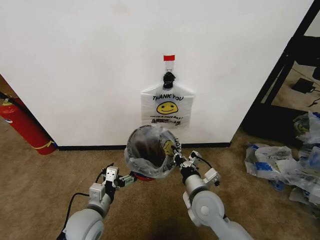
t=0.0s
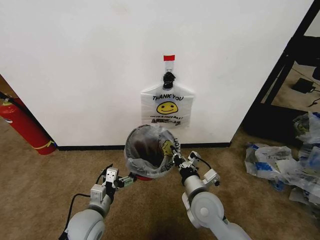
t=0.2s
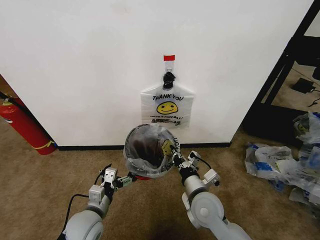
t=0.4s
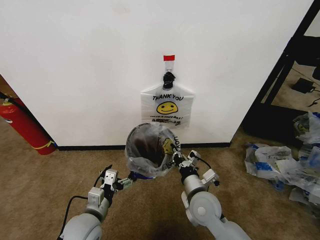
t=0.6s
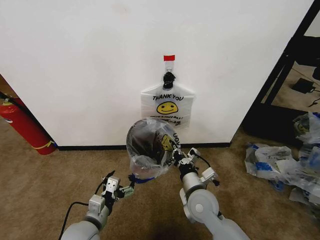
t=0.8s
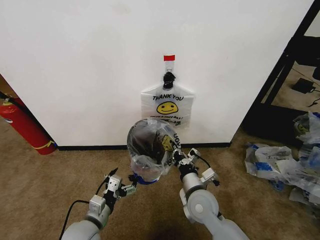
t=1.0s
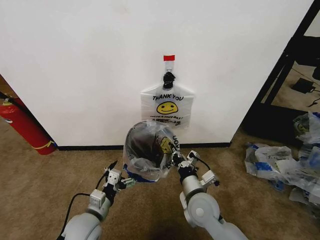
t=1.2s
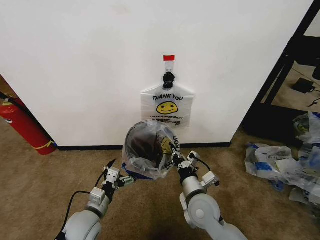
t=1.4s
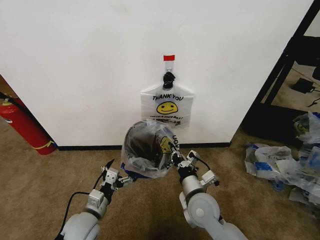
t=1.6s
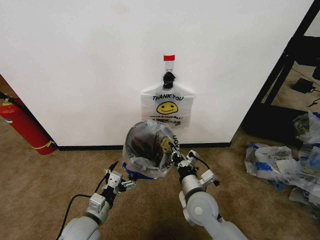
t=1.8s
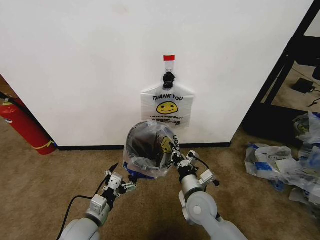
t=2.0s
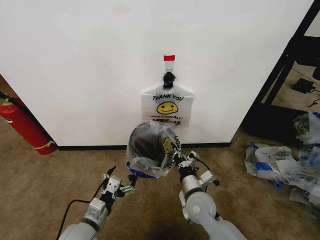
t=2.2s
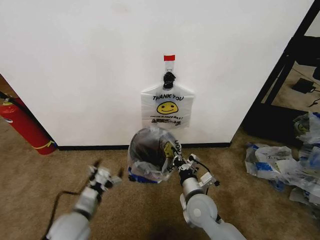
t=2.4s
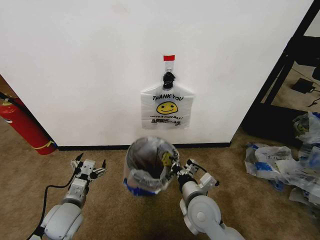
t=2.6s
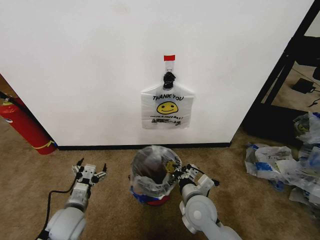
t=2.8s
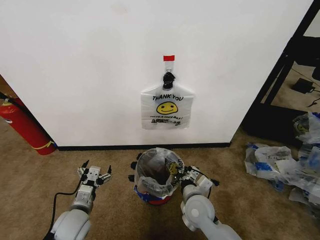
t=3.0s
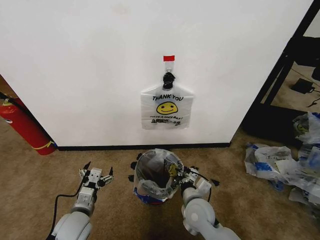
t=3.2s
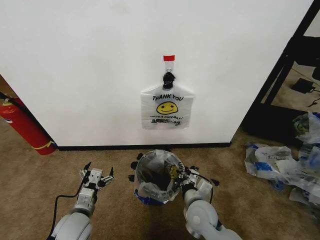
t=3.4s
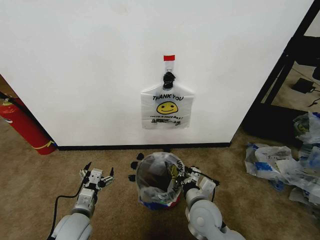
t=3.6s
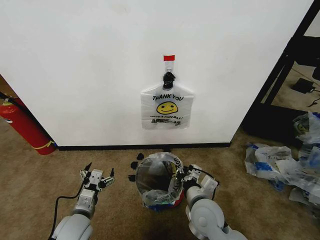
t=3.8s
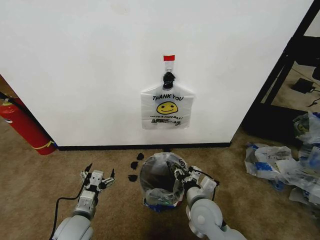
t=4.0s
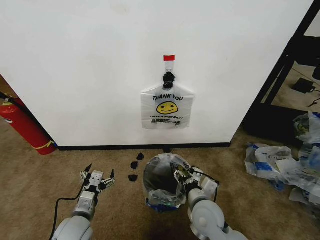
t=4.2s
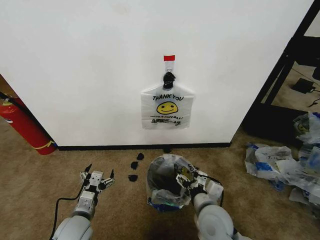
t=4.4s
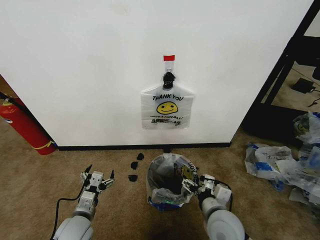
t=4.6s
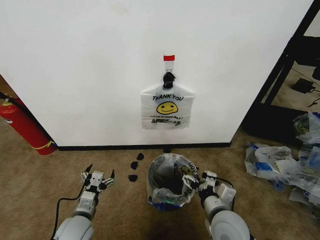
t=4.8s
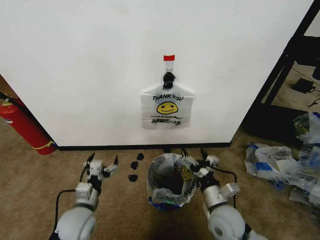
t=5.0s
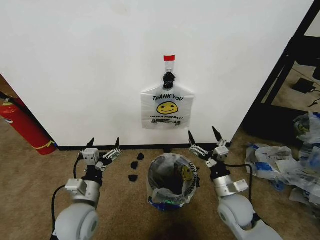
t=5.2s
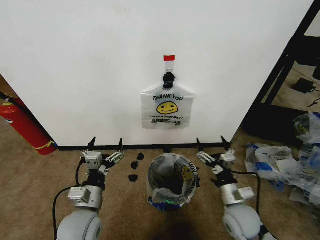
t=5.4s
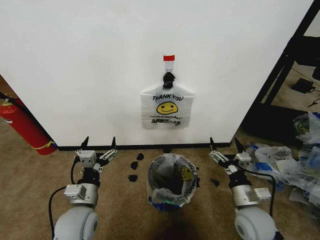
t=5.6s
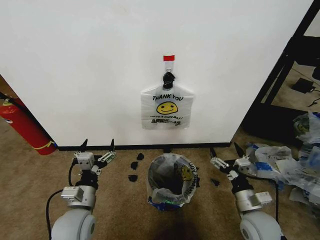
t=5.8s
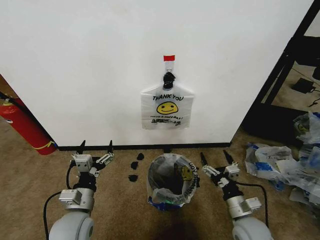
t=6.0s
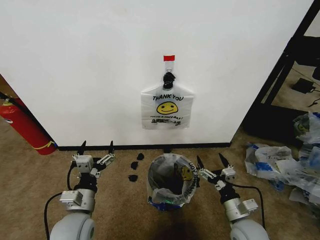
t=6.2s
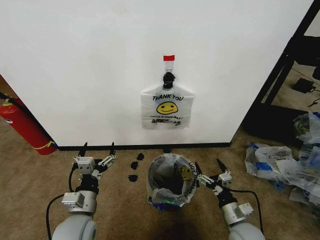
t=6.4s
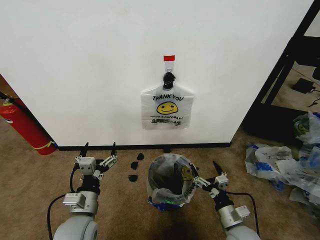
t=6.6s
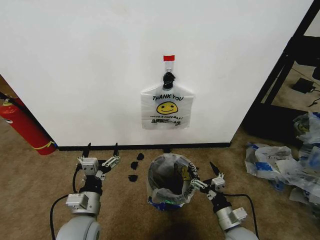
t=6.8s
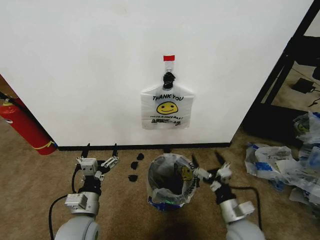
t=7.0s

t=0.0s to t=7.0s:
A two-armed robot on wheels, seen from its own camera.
Task of the whole recording: Pick up the garbage bag from the wall and place it over the trash bin.
t=0.0s to t=1.4s: The grippers make only small movements.
t=2.8s to t=4.2s: The right gripper opens up.
t=4.2s to t=5.6s: The left gripper heads upward, covering some 5 cm. The right gripper is displaced to the right by roughly 15 cm.

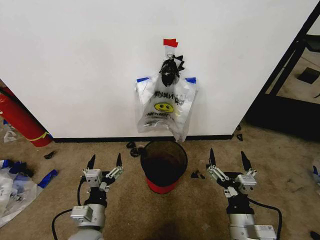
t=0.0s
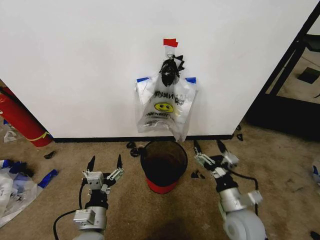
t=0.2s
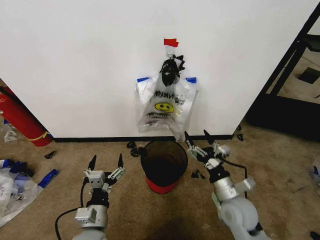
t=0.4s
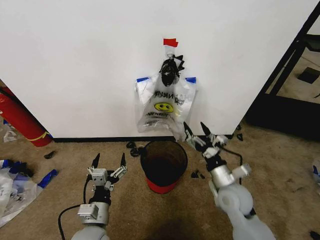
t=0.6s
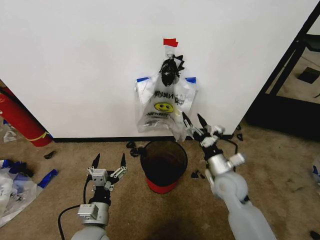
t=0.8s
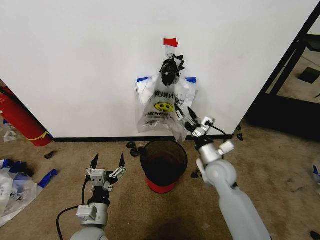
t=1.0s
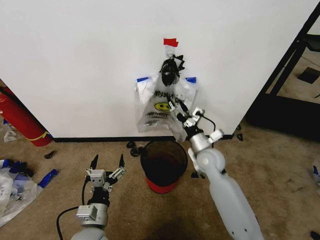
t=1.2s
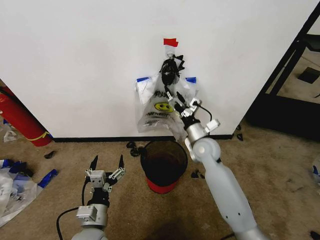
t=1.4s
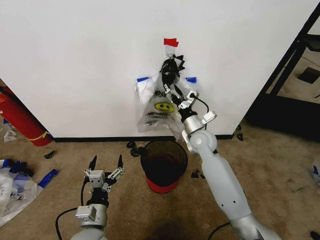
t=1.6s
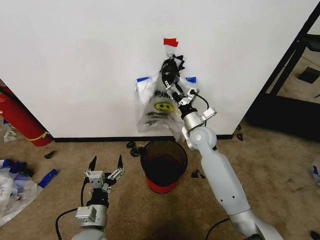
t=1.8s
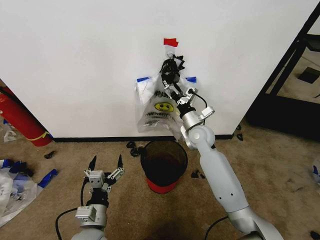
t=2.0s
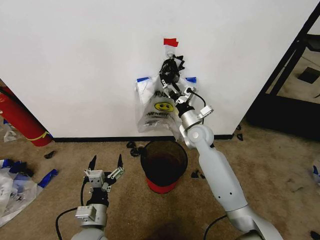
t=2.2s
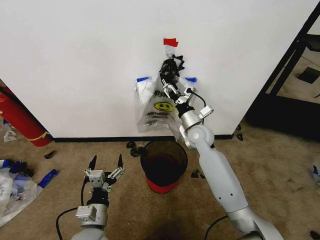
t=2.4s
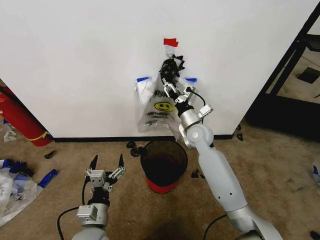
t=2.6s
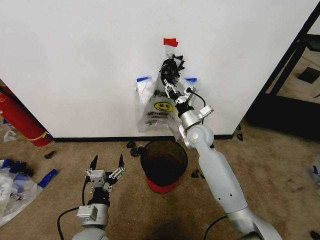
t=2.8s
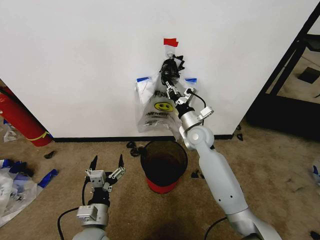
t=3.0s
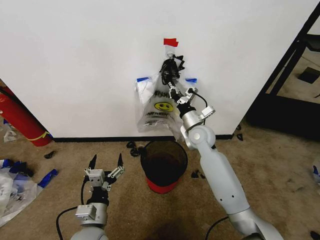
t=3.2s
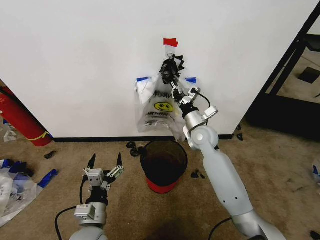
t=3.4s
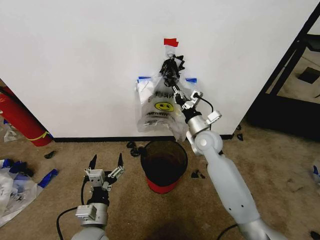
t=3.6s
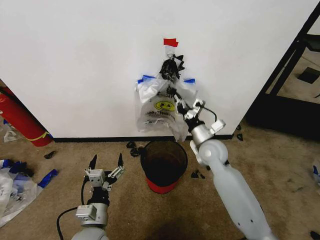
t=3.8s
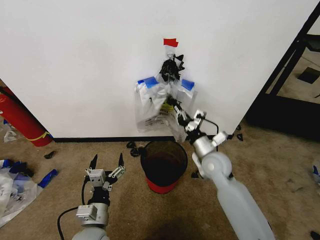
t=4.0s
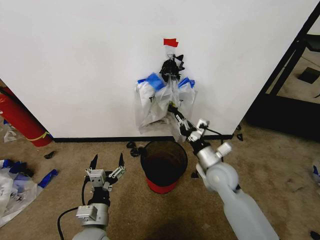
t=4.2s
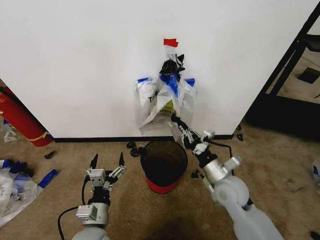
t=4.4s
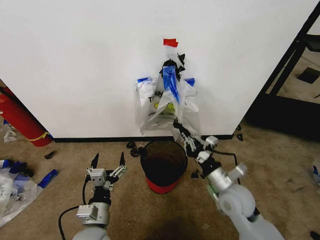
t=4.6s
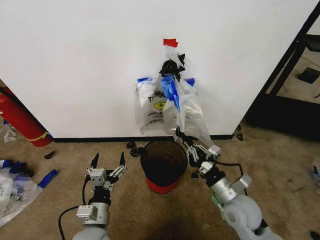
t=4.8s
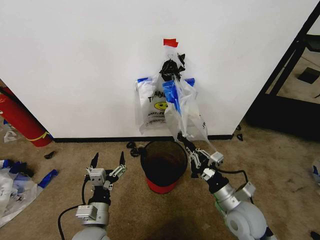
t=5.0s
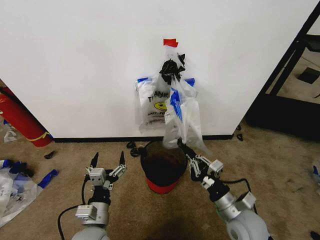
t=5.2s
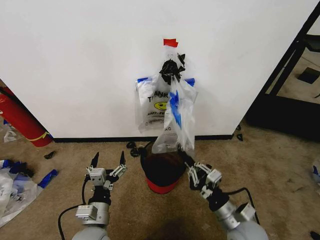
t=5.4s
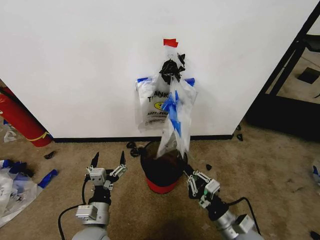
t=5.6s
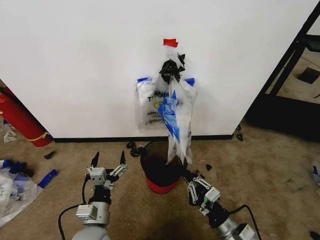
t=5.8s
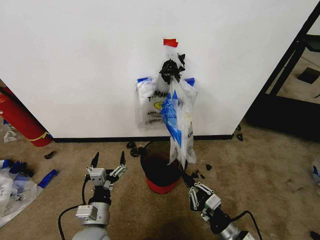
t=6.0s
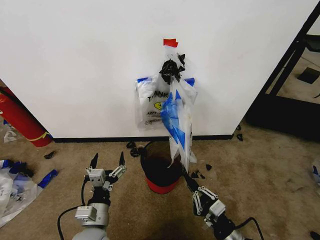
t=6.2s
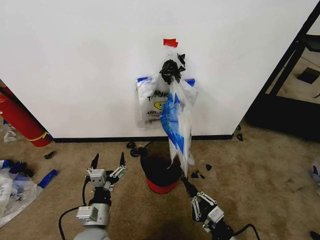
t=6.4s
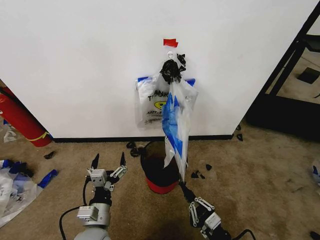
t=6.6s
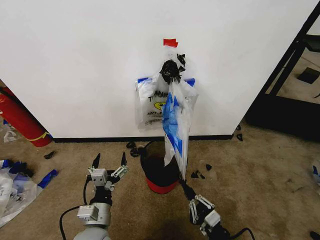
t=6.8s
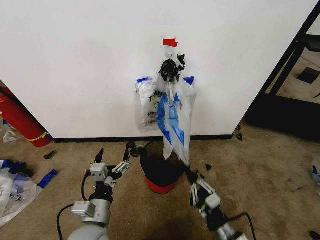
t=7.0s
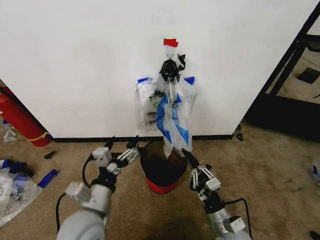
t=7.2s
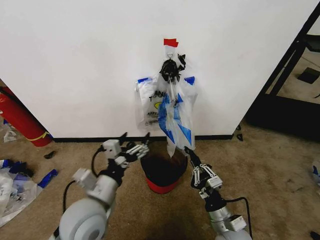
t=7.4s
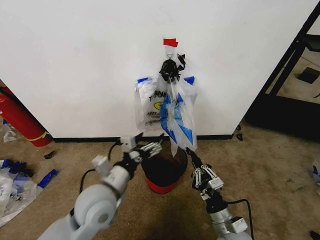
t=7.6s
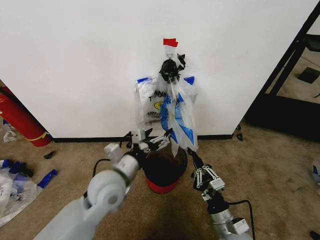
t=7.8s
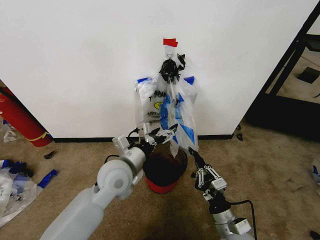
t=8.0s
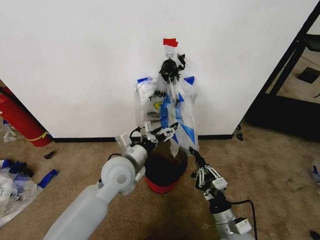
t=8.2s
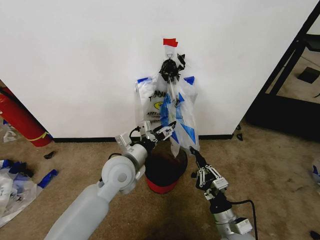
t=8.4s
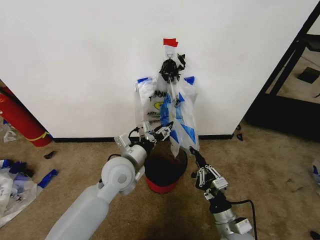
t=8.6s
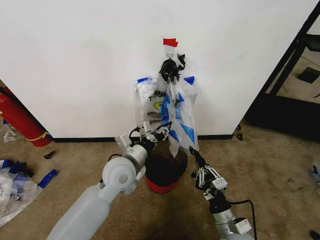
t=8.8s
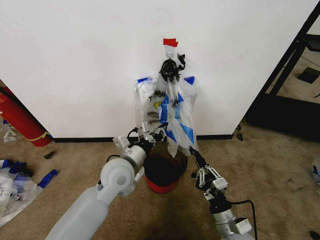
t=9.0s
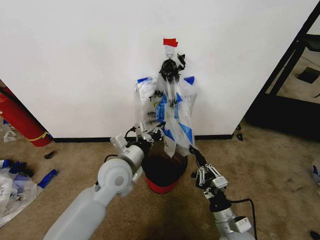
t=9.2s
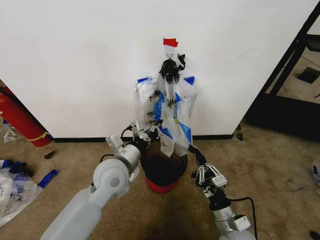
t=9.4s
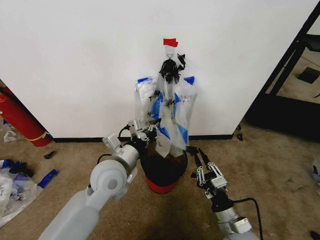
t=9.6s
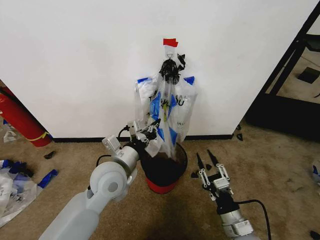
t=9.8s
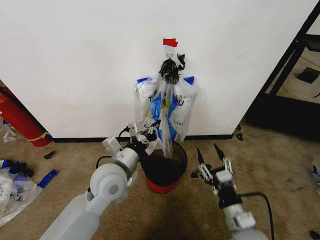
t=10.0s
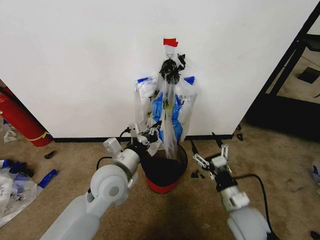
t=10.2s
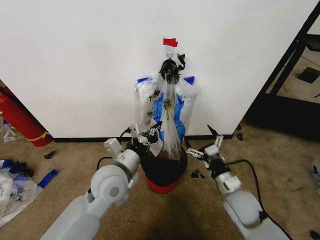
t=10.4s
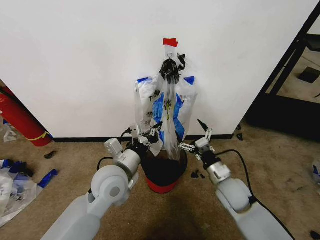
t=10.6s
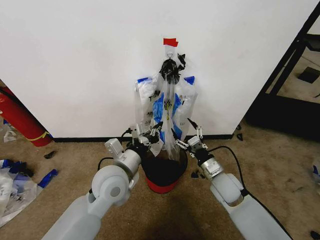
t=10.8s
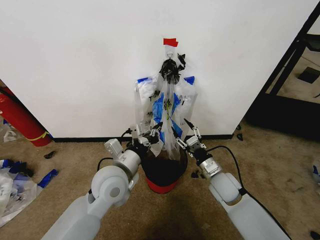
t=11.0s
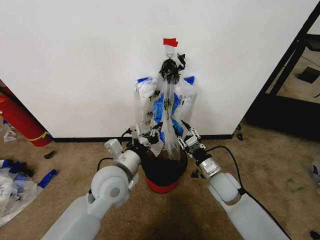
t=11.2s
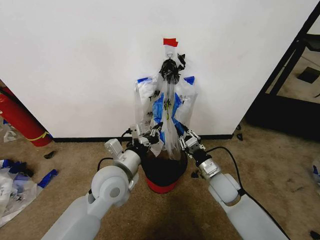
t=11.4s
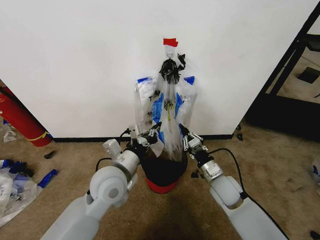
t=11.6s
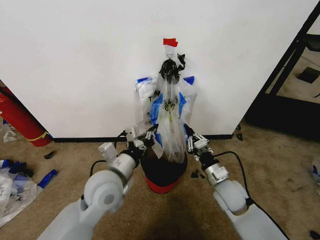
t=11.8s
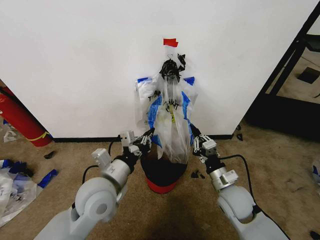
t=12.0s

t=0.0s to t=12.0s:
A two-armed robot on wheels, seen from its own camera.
Task of the whole recording: Pick up the garbage bag from the wall and place it over the trash bin.
t=1.6s to t=3.0s: The right gripper closes.
t=3.0s to t=4.4s: The right gripper moves backward, roughly 15 cm.
t=4.4s to t=6.0s: The right gripper travels backward and downward by some 20 cm.
t=6.0s to t=7.6s: The left gripper travels upward and forward by some 15 cm.
t=7.6s to t=9.0s: The left gripper is displaced forward by roughly 10 cm, and closes.
t=9.0s to t=10.4s: The right gripper travels forward by about 10 cm, and opens up.
t=10.4s to t=12.0s: The right gripper closes.

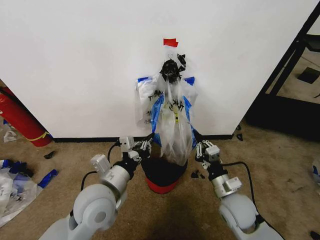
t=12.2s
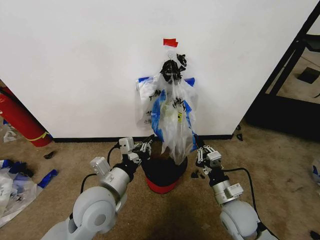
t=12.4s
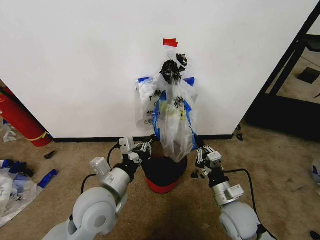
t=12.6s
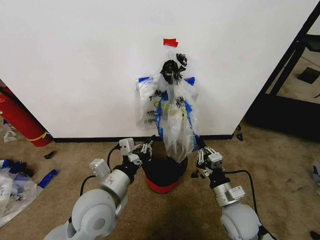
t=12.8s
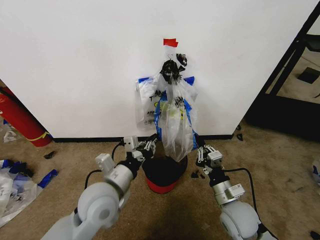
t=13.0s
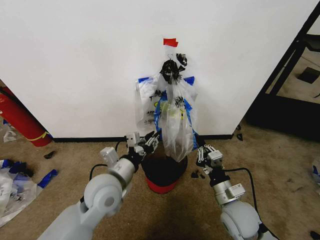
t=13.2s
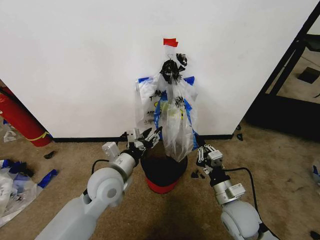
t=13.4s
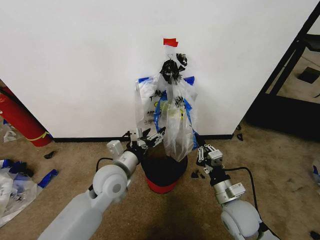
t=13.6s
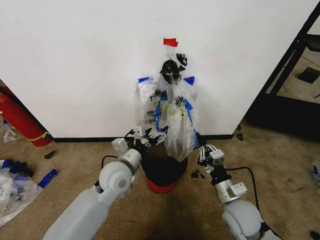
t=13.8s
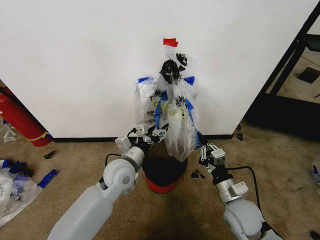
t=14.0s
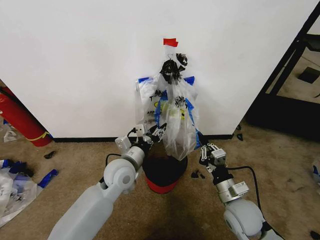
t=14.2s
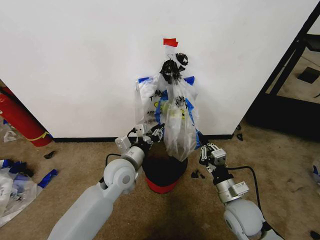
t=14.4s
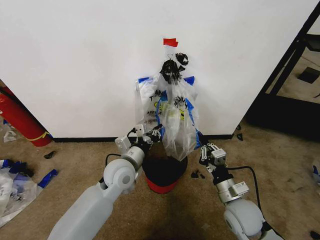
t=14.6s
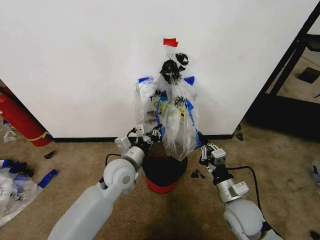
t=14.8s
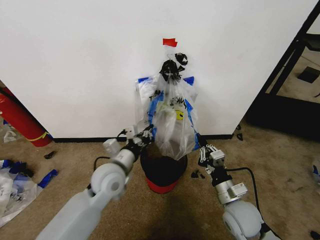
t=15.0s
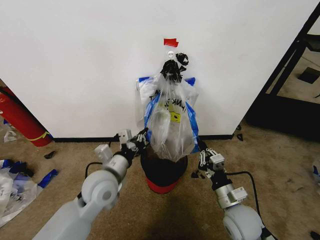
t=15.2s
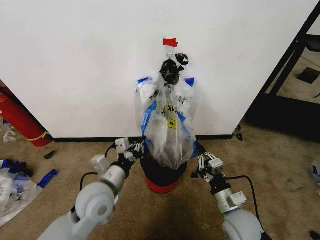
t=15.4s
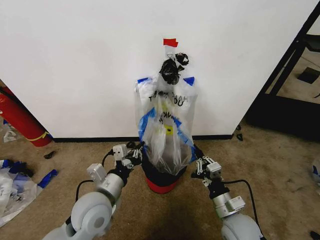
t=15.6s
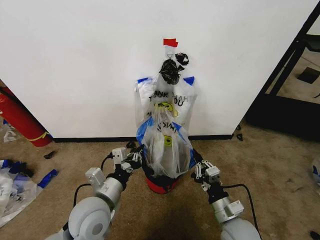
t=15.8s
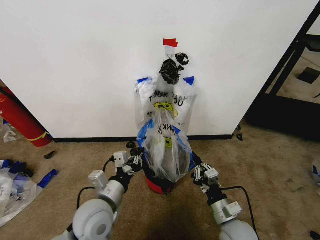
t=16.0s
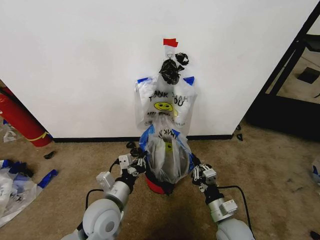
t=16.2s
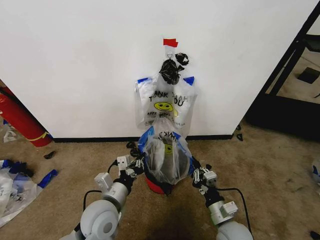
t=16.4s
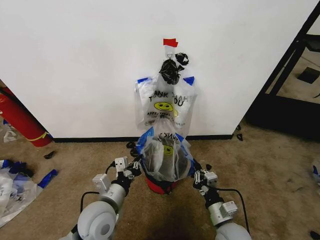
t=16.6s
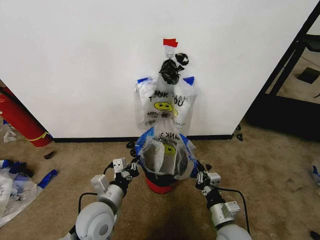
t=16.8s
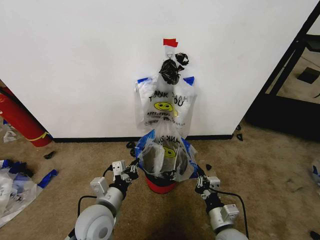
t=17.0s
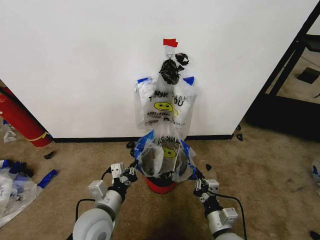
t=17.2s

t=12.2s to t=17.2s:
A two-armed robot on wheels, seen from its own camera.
Task of the whole recording: Pick up the garbage bag from the wall and place it over the trash bin.
t=12.2s to t=13.8s: The left gripper shifts some 10 cm forward, and opens.
t=13.8s to t=15.6s: The left gripper moves backward, roughly 10 cm, and closes its fingers.
t=15.6s to t=17.2s: The left gripper changes place by approximately 5 cm; the right gripper changes place by about 5 cm.
